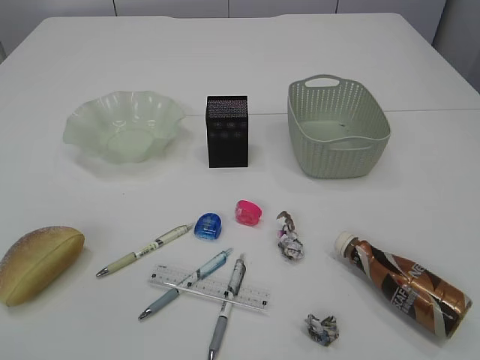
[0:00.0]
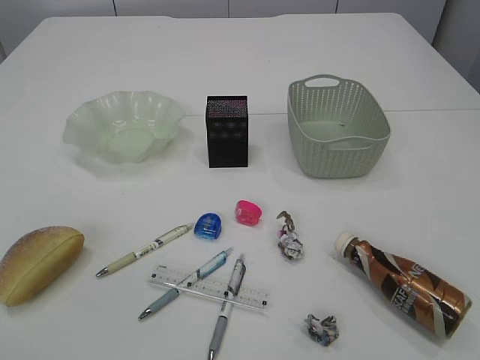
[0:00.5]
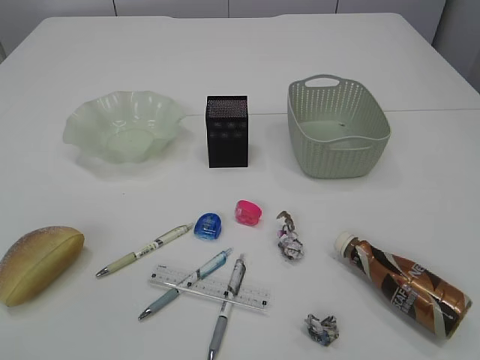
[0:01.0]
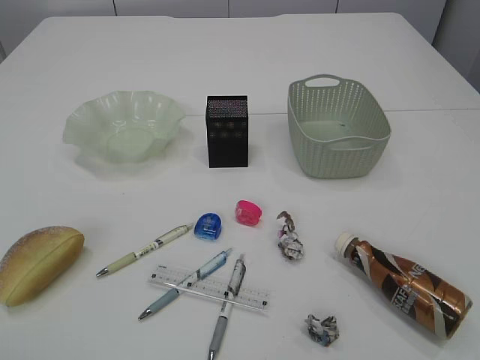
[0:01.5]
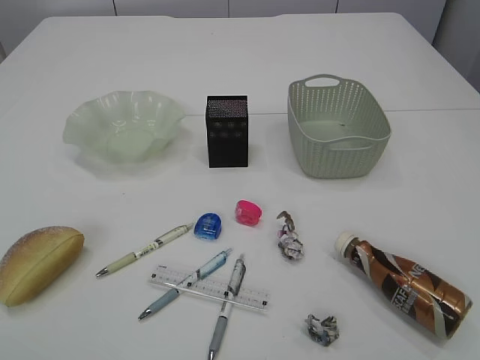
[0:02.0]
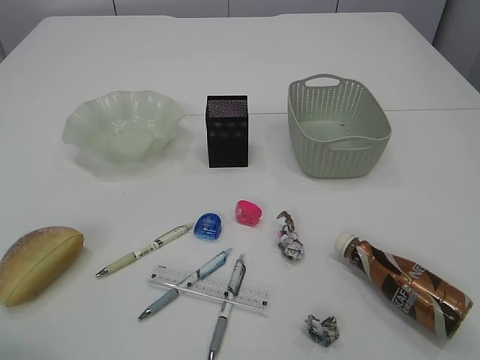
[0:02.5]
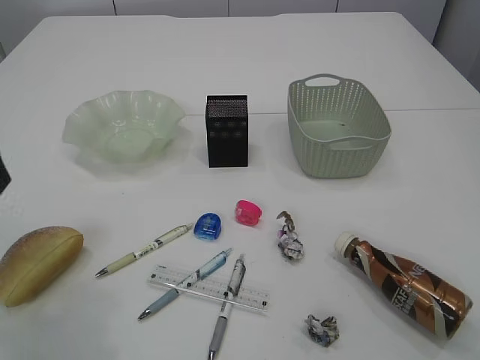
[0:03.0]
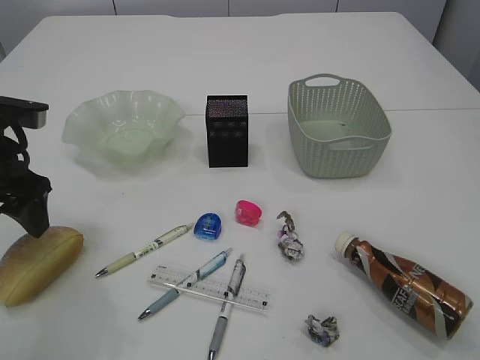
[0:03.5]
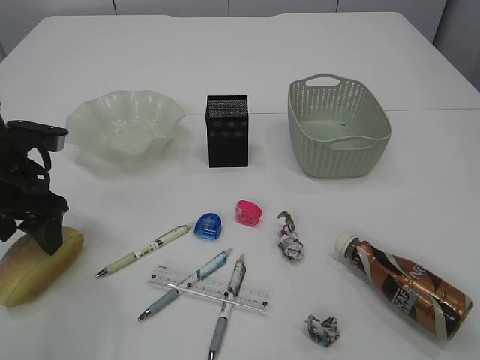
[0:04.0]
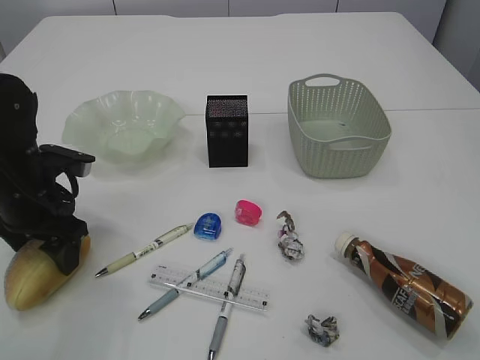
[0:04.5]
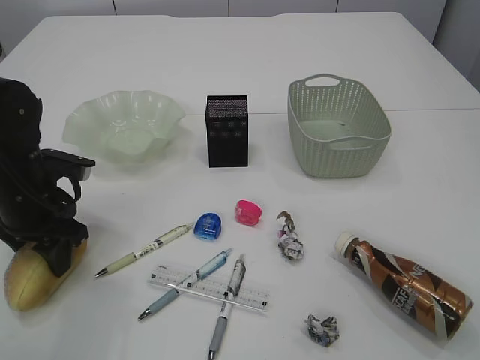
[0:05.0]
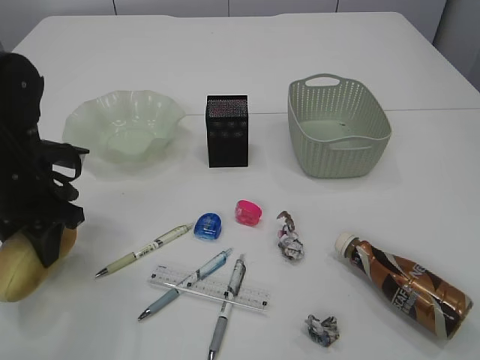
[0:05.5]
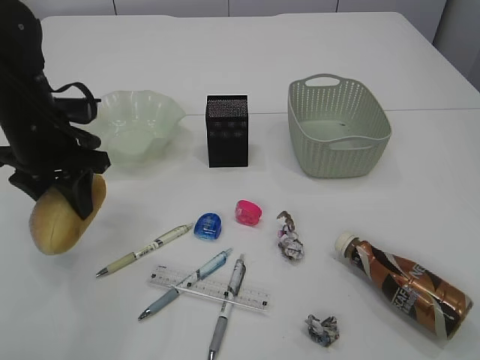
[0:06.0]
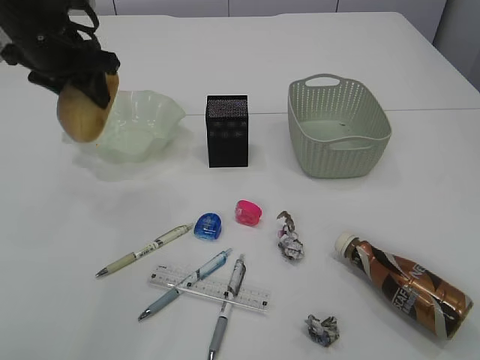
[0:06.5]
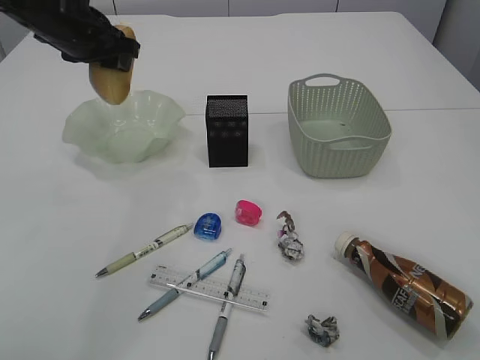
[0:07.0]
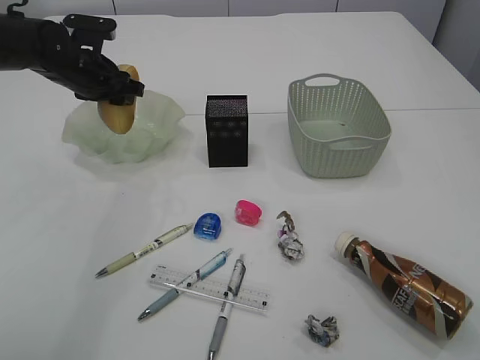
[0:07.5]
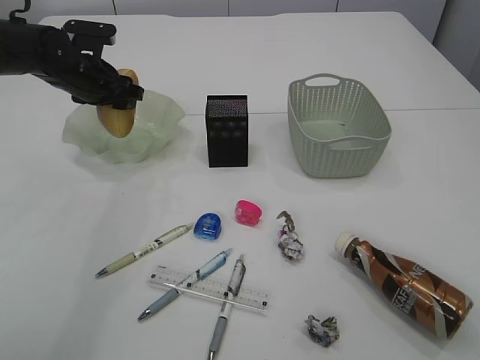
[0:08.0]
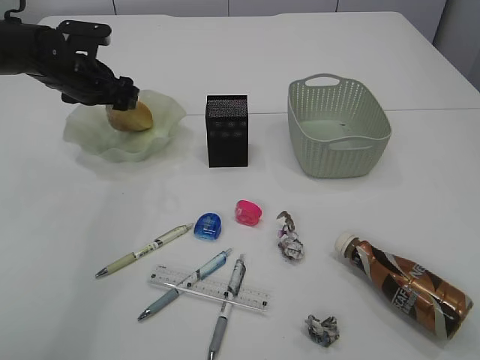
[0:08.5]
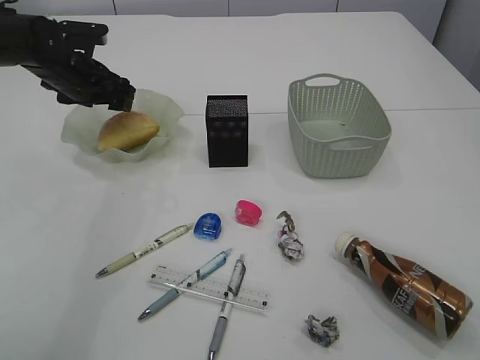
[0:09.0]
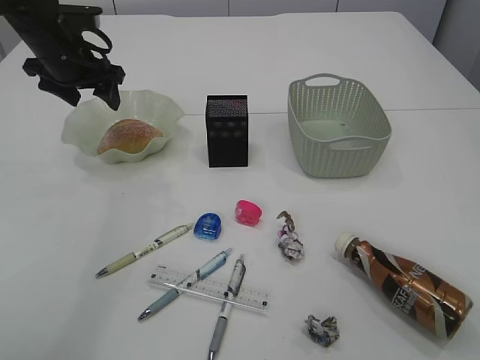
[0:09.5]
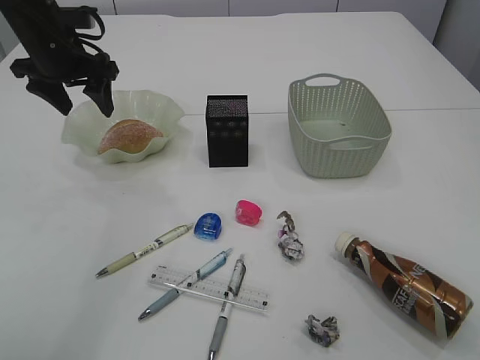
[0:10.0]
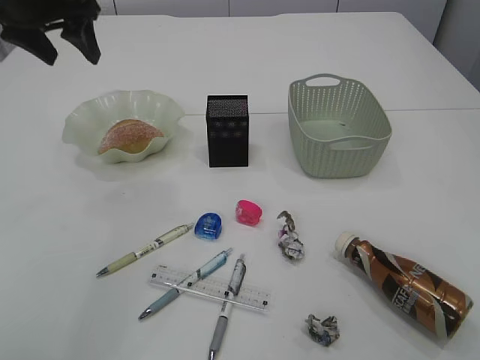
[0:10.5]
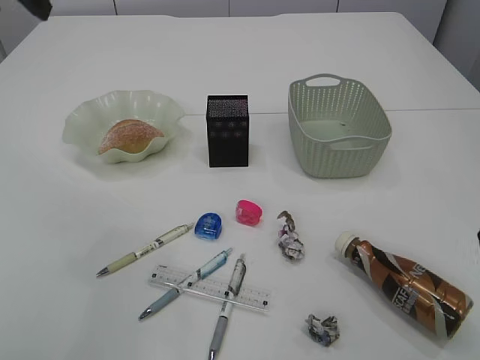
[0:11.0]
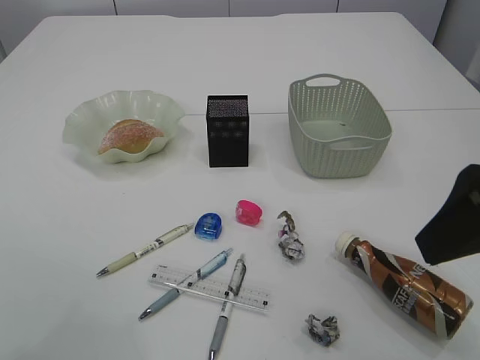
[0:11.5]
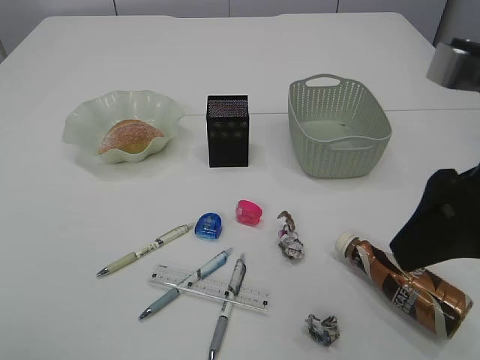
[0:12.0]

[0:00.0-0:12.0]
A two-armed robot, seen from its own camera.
Step, 0:06.0 to 0:10.0: place the bread in the plate.
0:02.0 to 0:04.0: The left gripper moves forward and downward, approximately 30 cm.
0:04.0 to 0:06.0: The left gripper changes place by about 5 cm, and closes.
0:06.0 to 0:08.0: The left gripper travels forward by approximately 15 cm.
0:08.0 to 0:10.0: The left gripper moves upward, about 5 cm.
0:10.0 to 0:12.0: The right gripper heads to the left, covering roughly 10 cm. The left gripper moves backward and upward, about 35 cm.

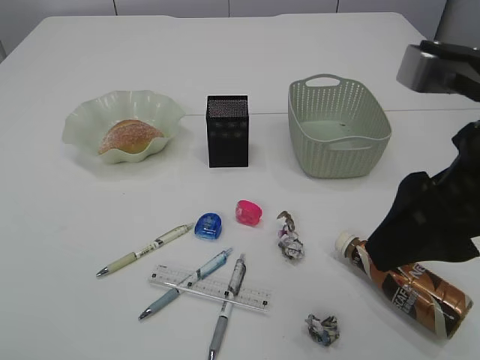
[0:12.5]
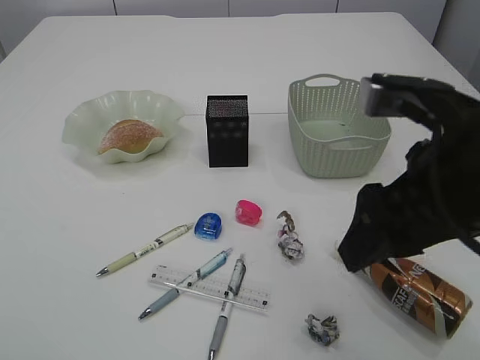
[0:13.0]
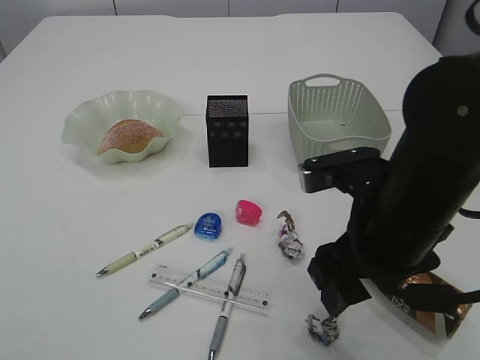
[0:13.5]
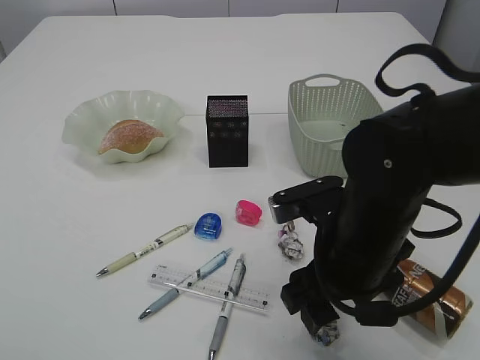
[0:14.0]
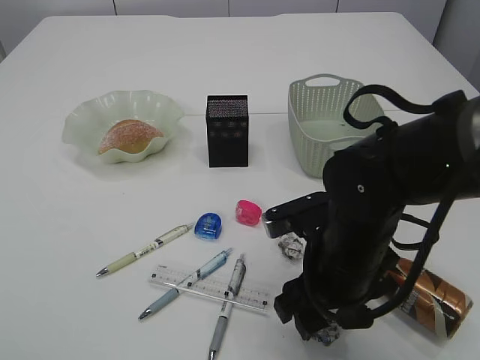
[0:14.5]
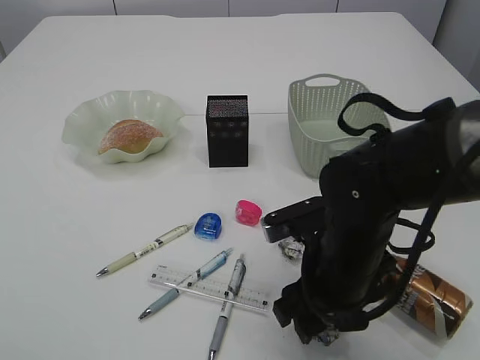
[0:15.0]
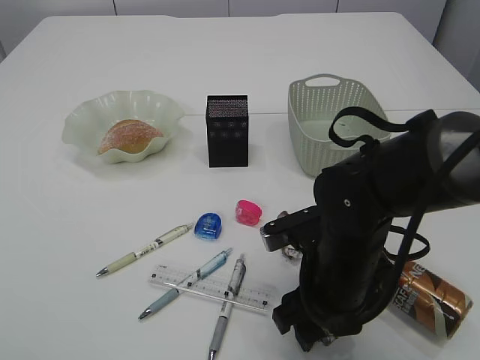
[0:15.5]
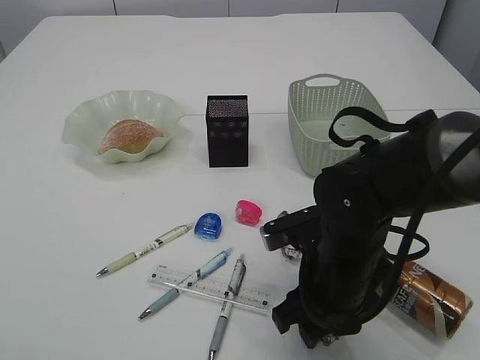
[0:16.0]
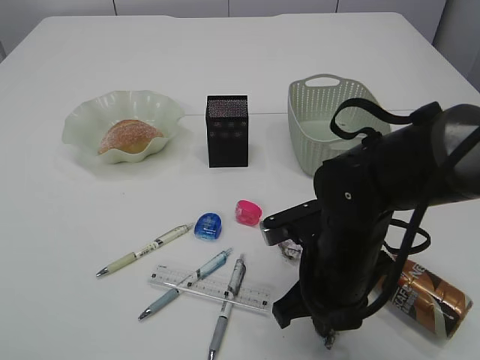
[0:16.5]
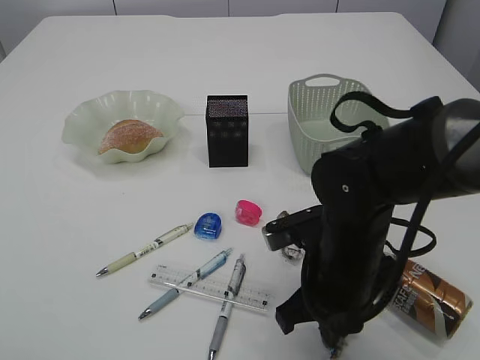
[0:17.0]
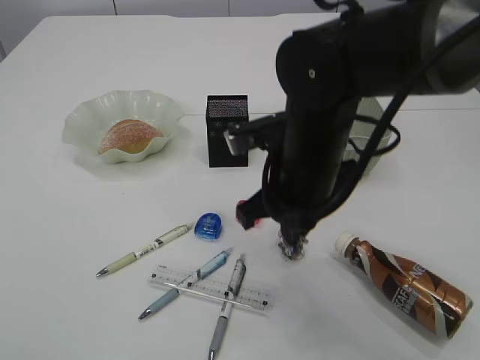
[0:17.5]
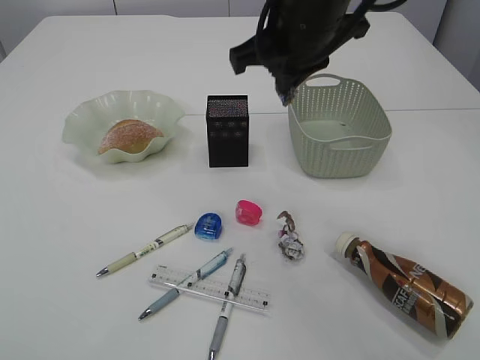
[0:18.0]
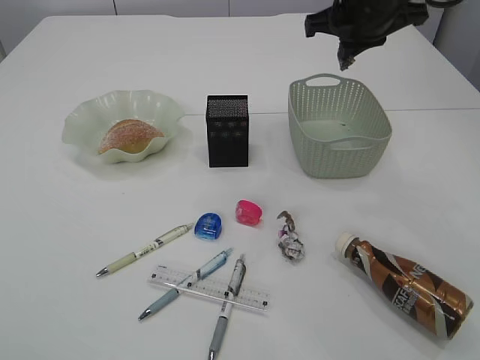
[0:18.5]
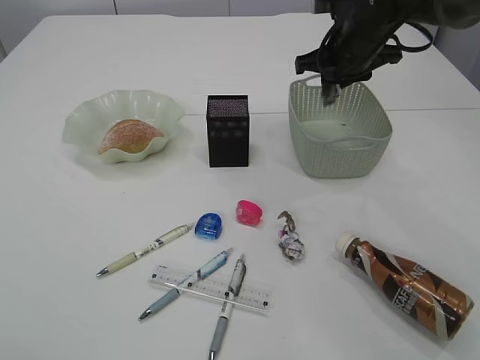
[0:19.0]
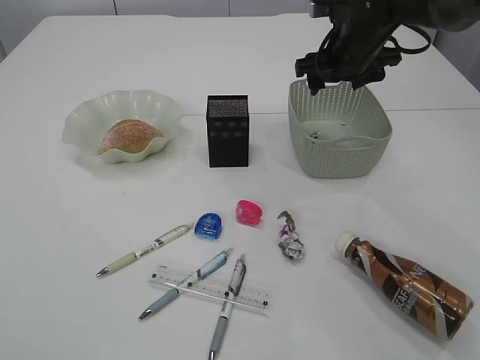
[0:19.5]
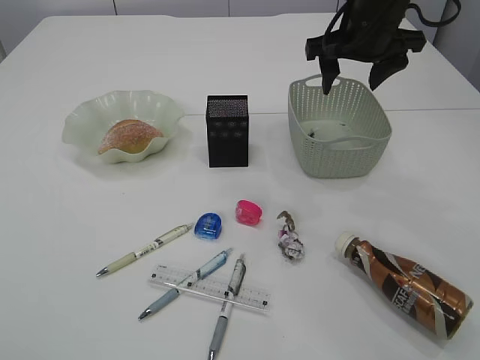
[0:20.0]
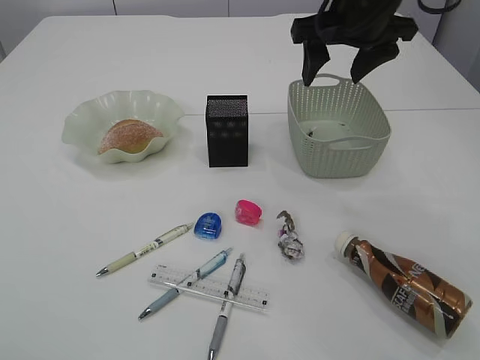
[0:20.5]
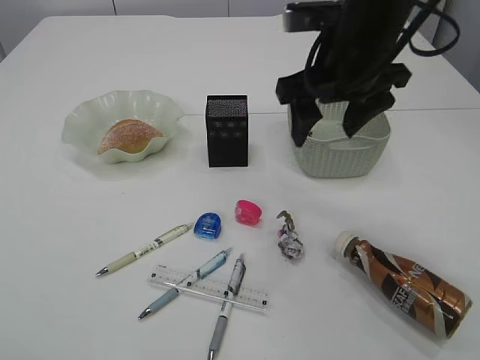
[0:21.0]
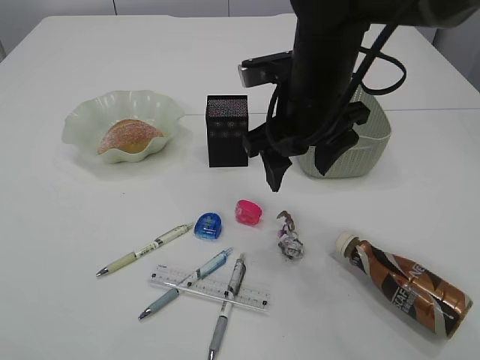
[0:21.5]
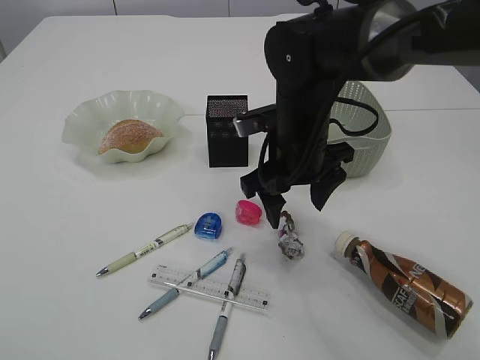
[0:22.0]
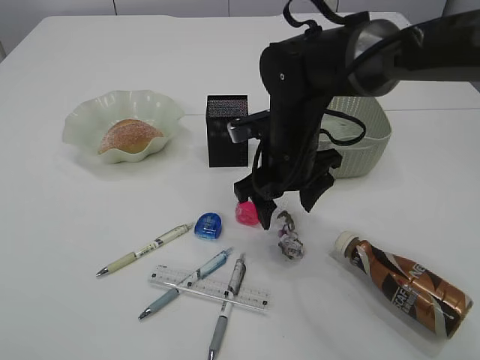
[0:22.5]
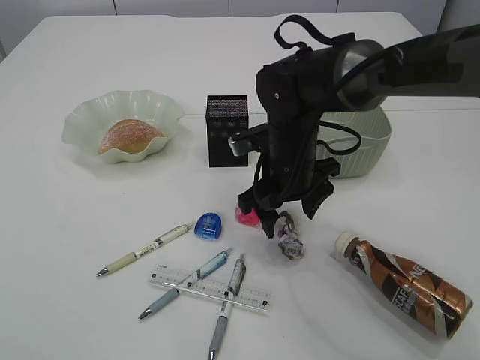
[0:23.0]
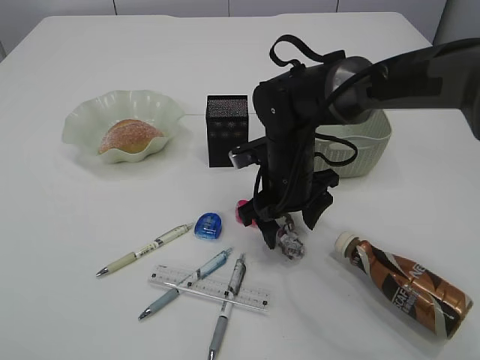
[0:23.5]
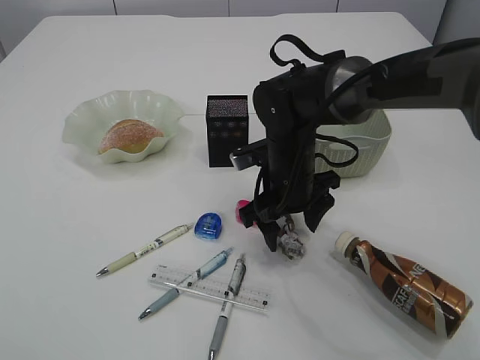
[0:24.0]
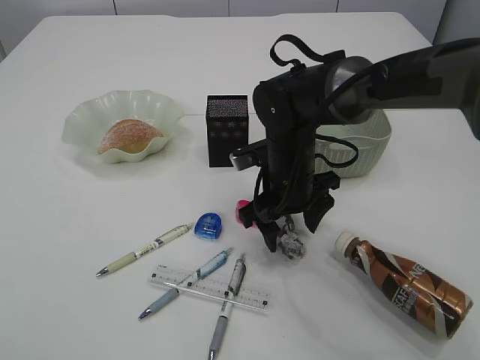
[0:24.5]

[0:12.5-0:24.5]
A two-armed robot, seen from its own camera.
Step, 0:12.5 to 0:17.0: Pick up the waste paper.
Step, 0:17.5 to 0:19.5: Place the waste paper in the basket.
0:12.5 to 0:14.5: The left gripper ends up about 5 cm from where it was. The right gripper shifts roughly 20 cm downward, to the left and forward.
0:14.5 to 0:16.5: The right gripper closes.
0:16.5 to 0:18.5: The right gripper moves upward and forward, about 25 cm.
0:18.5 to 0:20.5: The right gripper moves about 5 cm downward and comes back, and opens.
0:20.5 to 0:22.5: The right gripper moves downward and to the left, roughly 15 cm.
0:22.5 to 0:24.5: The grippers make only small movements.

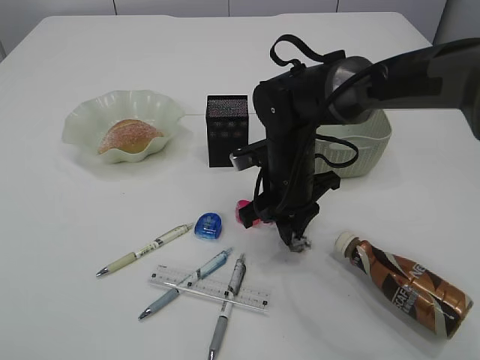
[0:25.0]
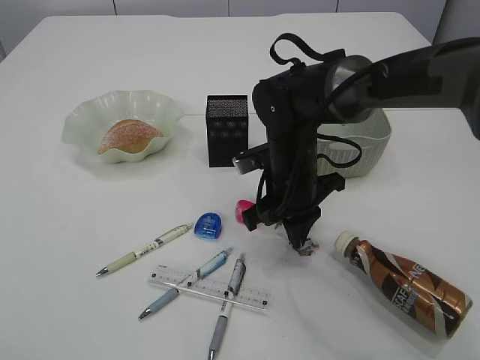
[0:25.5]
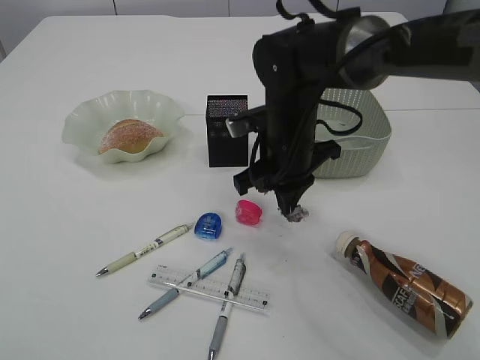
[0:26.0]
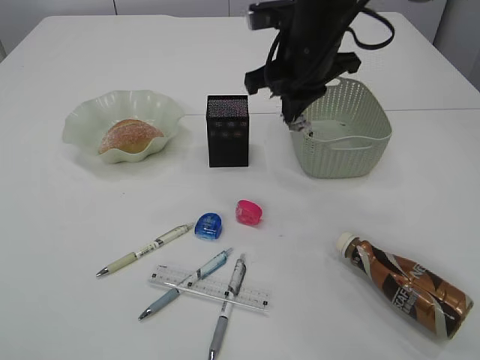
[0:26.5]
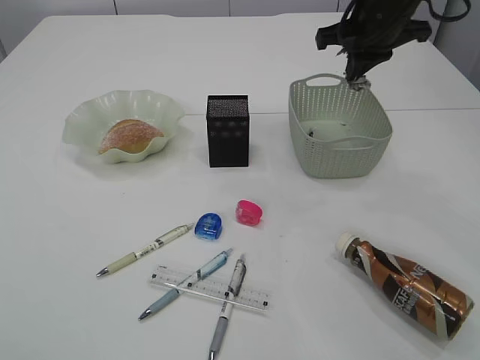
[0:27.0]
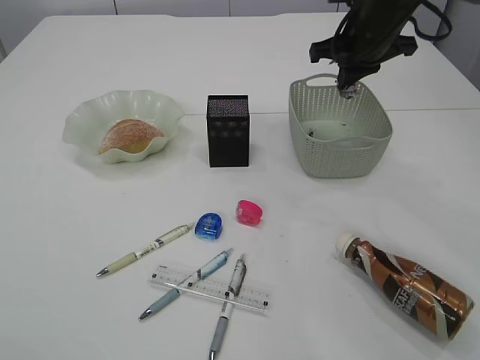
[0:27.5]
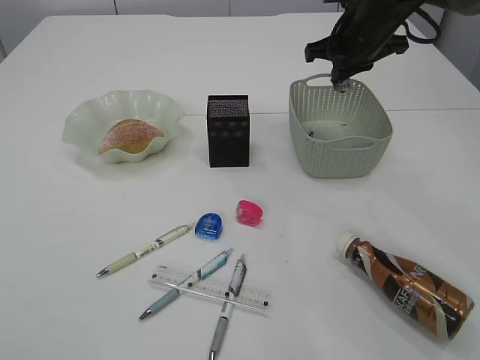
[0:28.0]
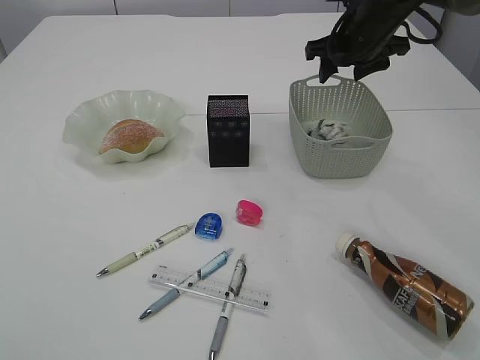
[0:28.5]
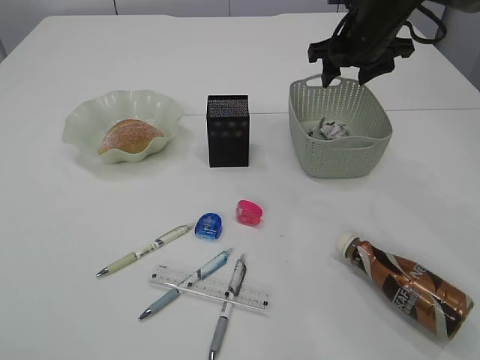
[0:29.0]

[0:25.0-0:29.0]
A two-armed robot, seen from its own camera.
Step, 0:26.5 to 0:28.5: Place the waste paper in the basket.
0:25.0 to 0:27.0: The right gripper heads upward, to the right and forward, covering approximately 20 cm.
0:27.0 to 0:29.0: The right gripper opens.
